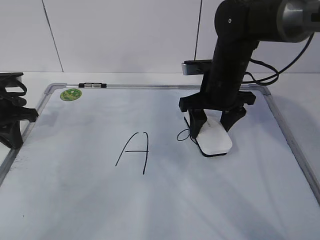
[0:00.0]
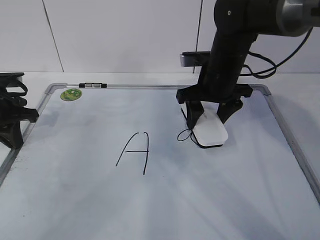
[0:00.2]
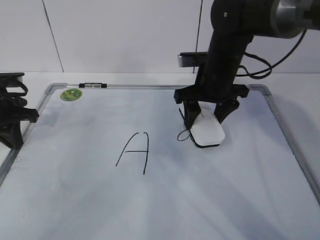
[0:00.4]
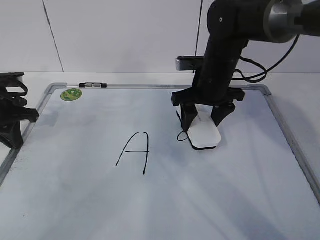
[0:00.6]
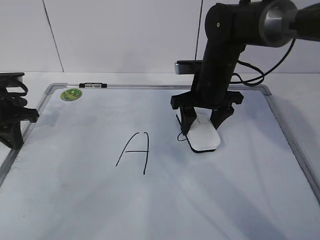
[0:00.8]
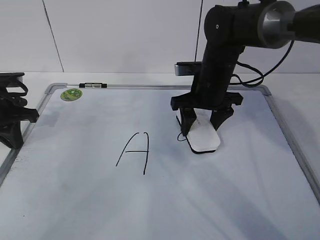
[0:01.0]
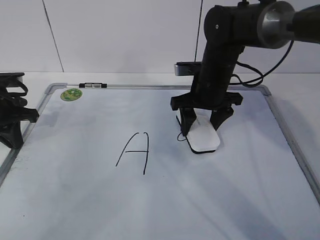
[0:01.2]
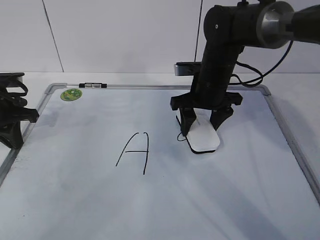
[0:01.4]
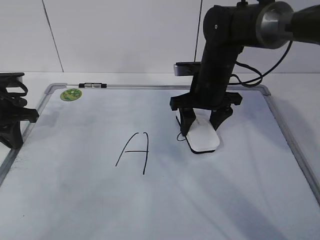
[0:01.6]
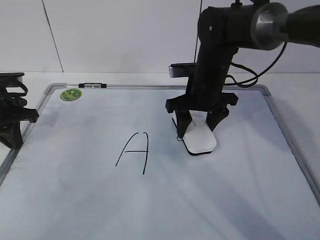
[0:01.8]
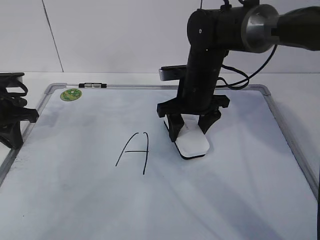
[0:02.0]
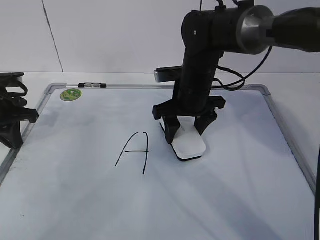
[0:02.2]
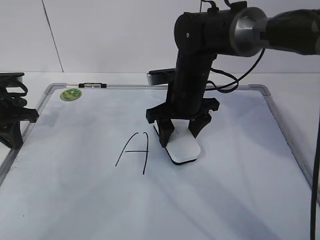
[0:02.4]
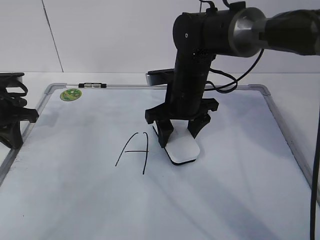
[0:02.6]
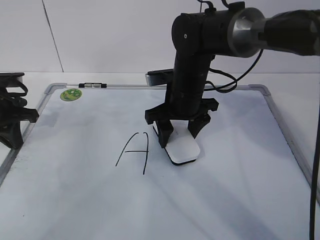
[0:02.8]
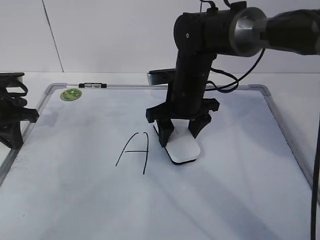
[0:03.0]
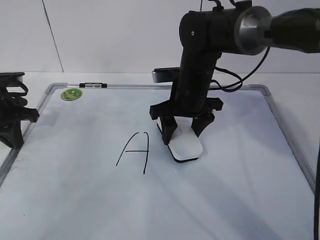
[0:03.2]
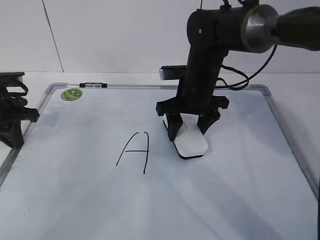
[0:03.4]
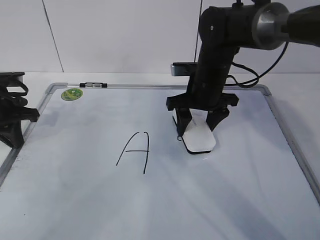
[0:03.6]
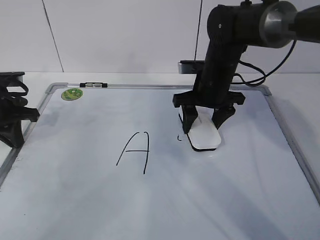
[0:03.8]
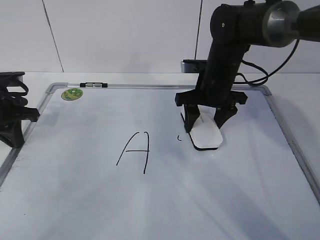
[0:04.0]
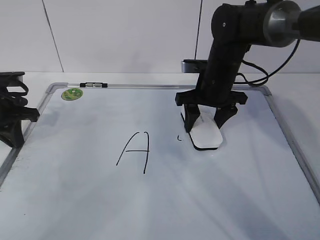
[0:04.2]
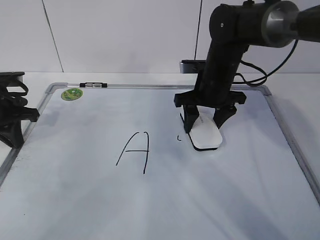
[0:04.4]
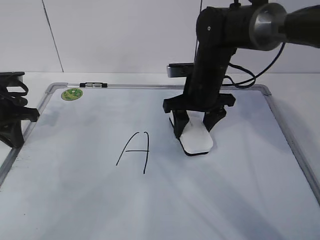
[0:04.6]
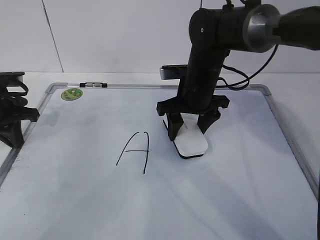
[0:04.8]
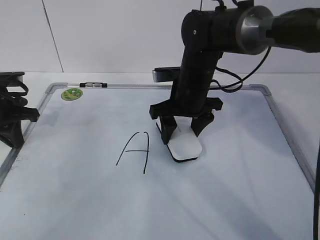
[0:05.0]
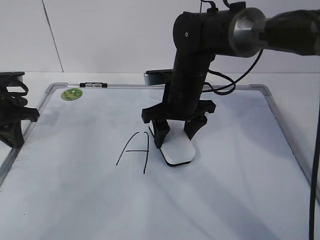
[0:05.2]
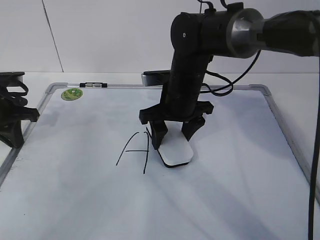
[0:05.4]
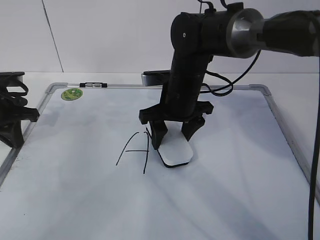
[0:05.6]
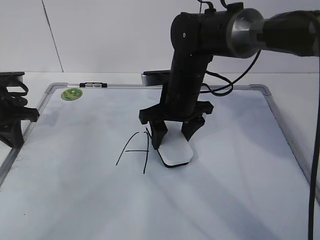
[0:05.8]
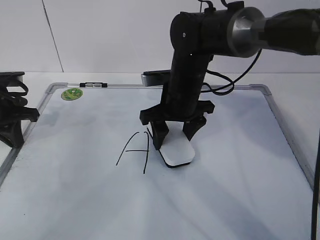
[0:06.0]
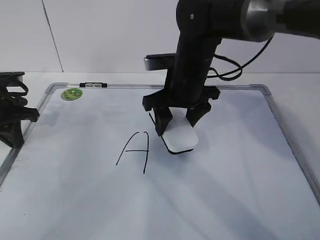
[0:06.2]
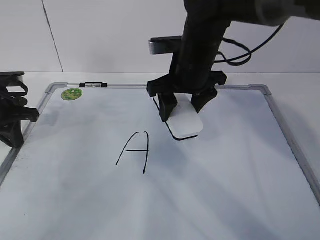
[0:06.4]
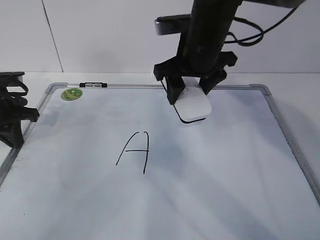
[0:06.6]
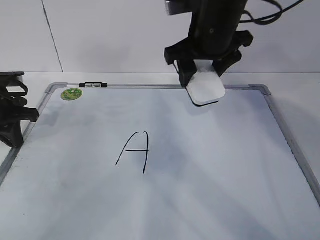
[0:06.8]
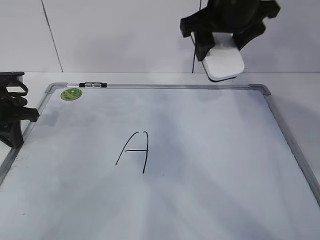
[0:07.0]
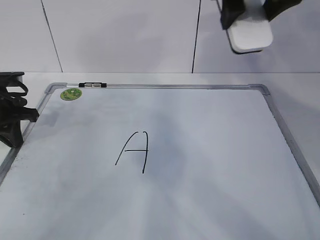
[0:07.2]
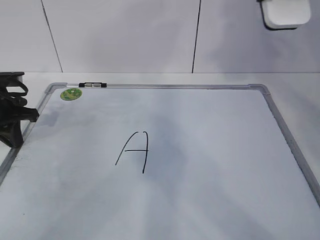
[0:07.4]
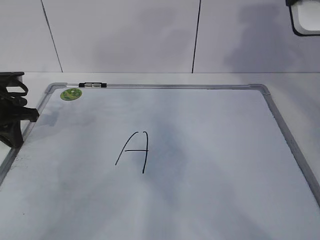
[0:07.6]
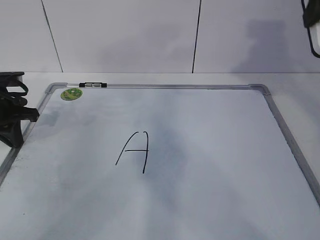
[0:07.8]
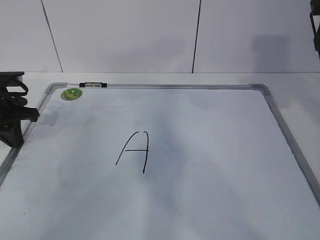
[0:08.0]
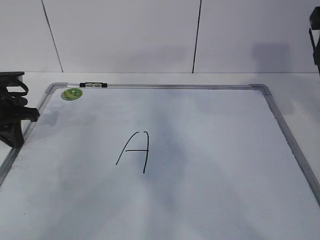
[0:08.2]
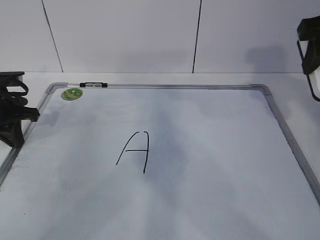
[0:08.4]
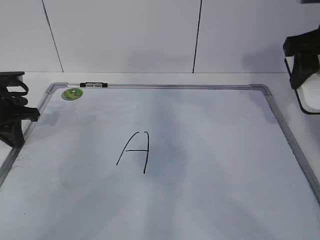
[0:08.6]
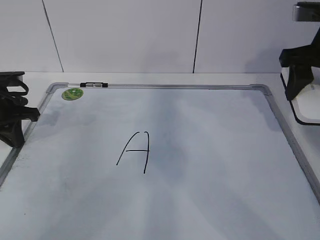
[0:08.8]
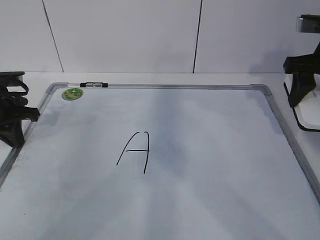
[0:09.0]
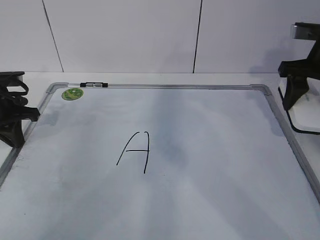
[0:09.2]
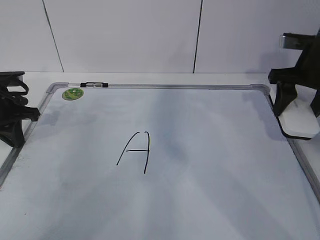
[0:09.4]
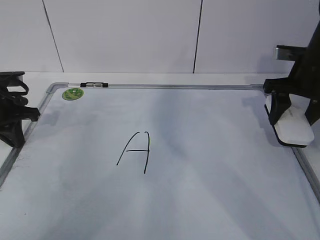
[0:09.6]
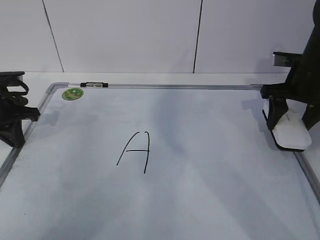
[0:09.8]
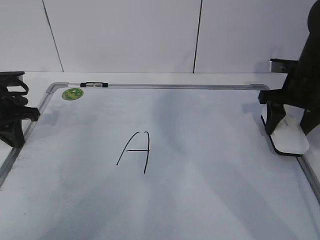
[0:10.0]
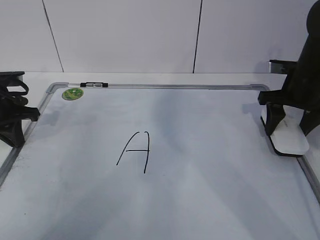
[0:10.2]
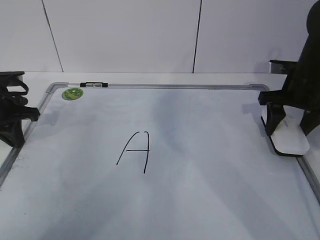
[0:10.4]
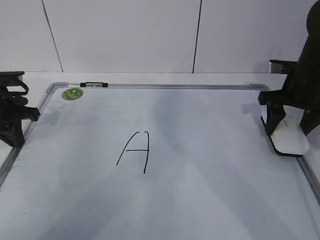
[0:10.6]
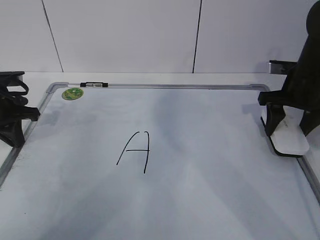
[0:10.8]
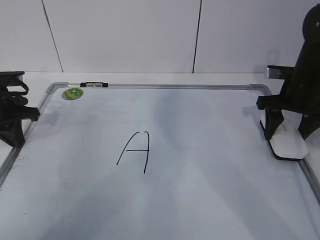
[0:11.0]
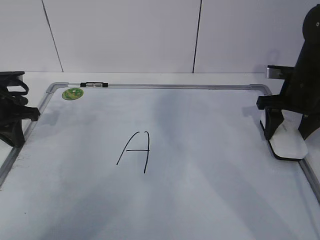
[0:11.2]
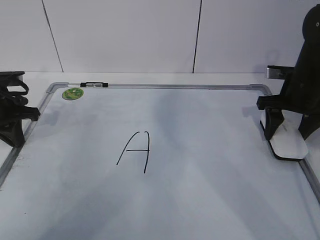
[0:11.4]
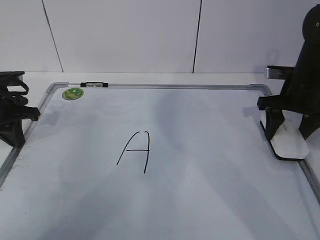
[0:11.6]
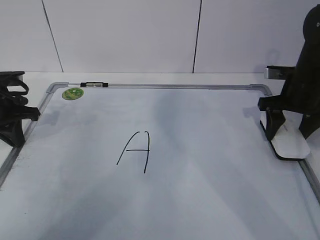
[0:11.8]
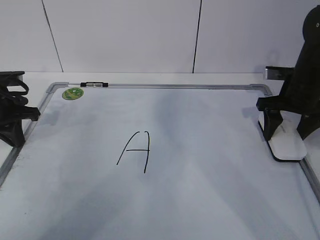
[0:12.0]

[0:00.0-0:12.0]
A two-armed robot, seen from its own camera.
Task of the whole recording: pick up the eraser on the blackboard and erase the letter "a".
Step, 0:01.8 to 0:08.0: Put down the eraser with your right hand.
0:00.0 to 0:01.6: There are only small adjustments of the grippers.
0:01.6 to 0:03.0: The right gripper shifts by approximately 5 cm.
0:03.0 to 0:04.4: The right gripper is displaced to the right by some 5 cm.
0:04.4 to 0:06.0: The right gripper travels to the left by about 5 cm.
0:06.0 to 0:07.6: The right gripper moves upward and to the right, about 30 cm.
0:07.6 to 0:09.0: The right gripper is displaced downward and to the right by some 15 cm.
0:09.0 to 0:10.4: The right gripper heads downward, covering some 10 cm.
0:10.4 to 0:12.0: The right gripper opens its fingers.

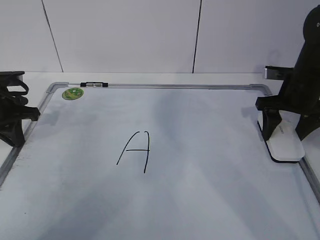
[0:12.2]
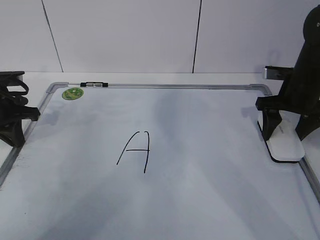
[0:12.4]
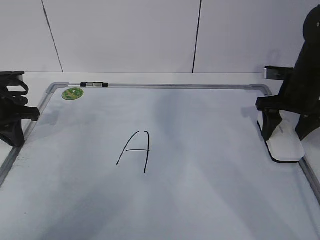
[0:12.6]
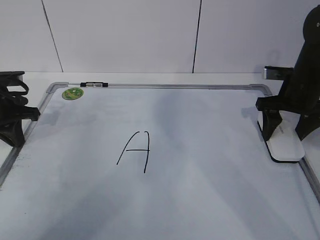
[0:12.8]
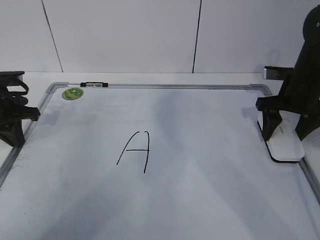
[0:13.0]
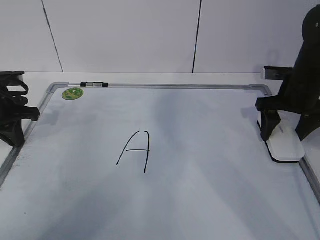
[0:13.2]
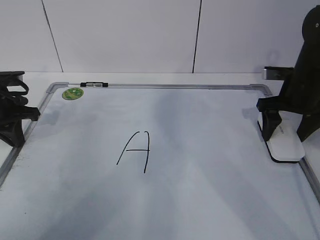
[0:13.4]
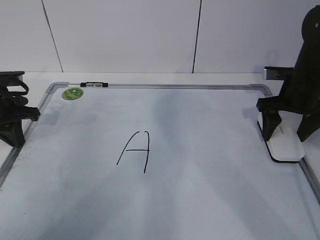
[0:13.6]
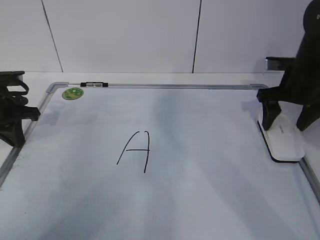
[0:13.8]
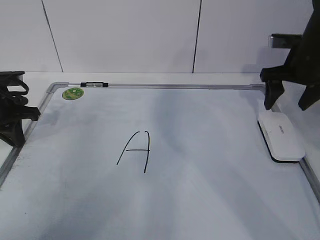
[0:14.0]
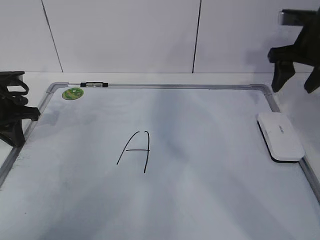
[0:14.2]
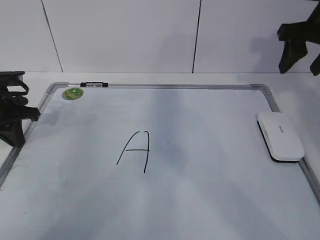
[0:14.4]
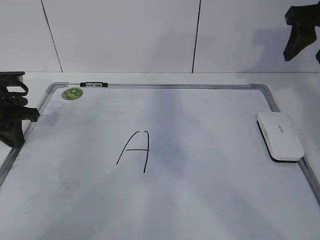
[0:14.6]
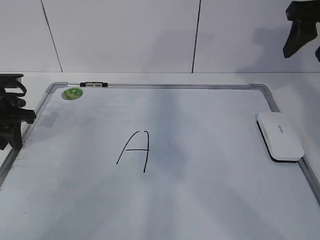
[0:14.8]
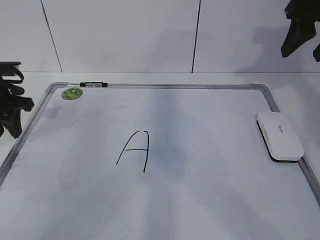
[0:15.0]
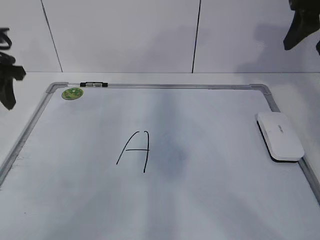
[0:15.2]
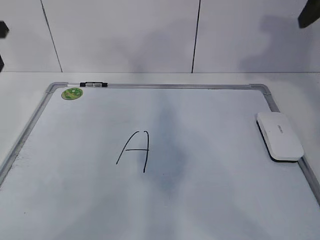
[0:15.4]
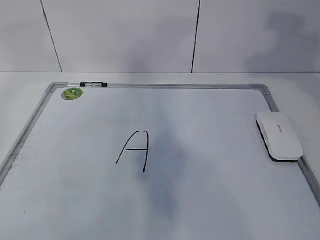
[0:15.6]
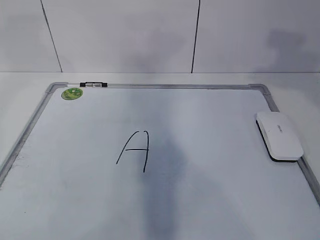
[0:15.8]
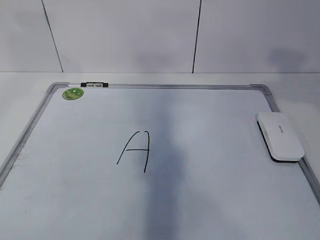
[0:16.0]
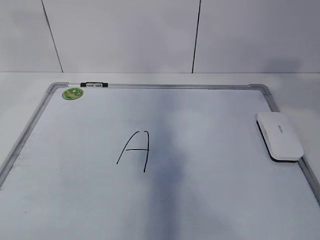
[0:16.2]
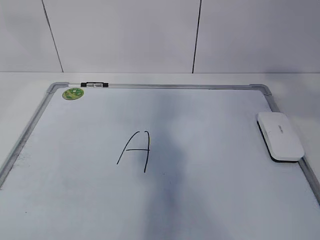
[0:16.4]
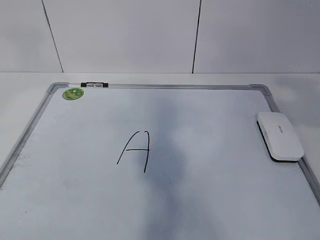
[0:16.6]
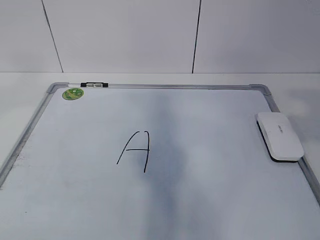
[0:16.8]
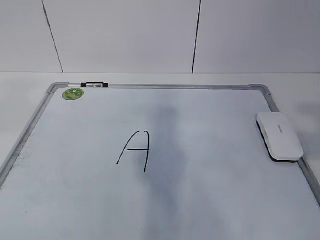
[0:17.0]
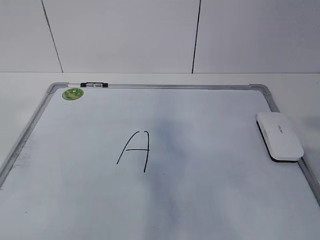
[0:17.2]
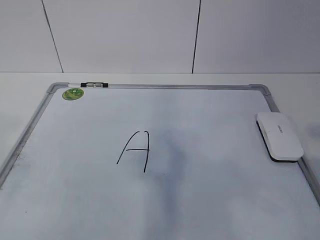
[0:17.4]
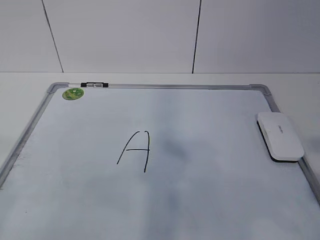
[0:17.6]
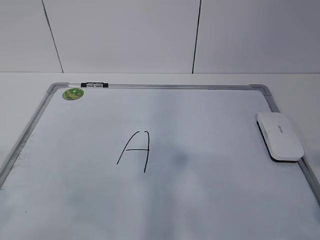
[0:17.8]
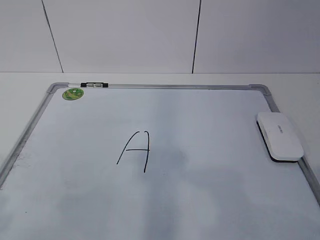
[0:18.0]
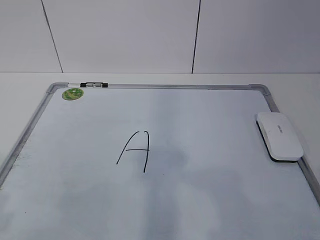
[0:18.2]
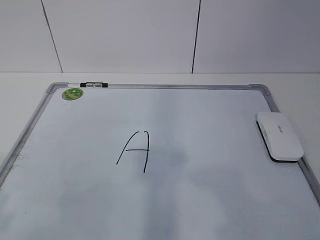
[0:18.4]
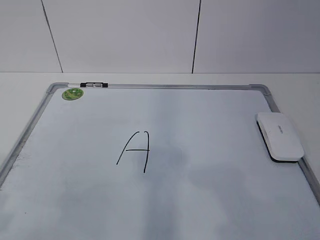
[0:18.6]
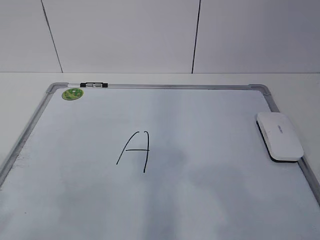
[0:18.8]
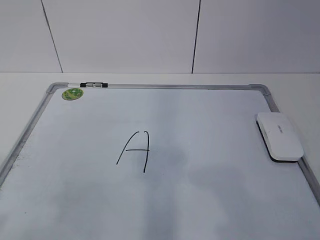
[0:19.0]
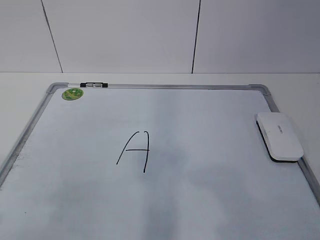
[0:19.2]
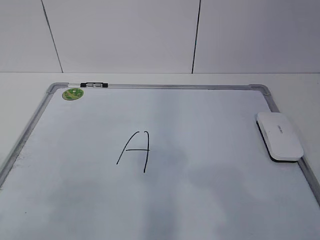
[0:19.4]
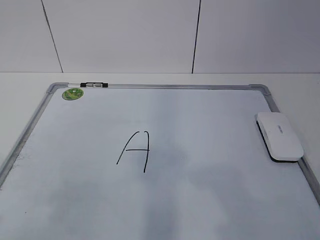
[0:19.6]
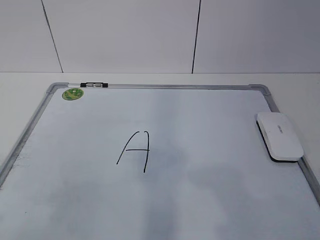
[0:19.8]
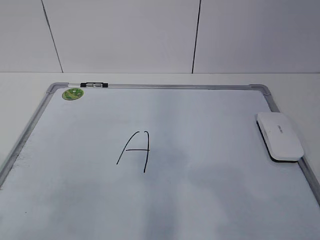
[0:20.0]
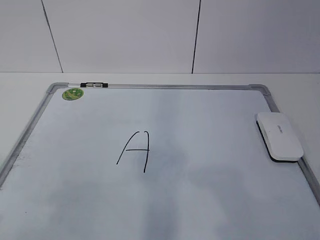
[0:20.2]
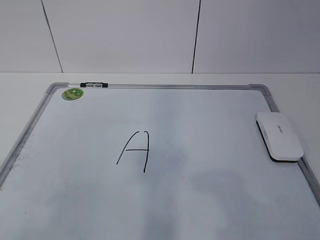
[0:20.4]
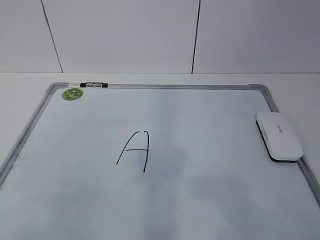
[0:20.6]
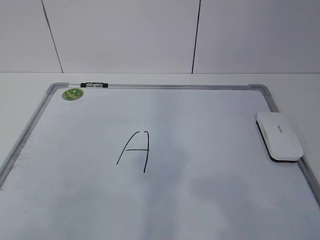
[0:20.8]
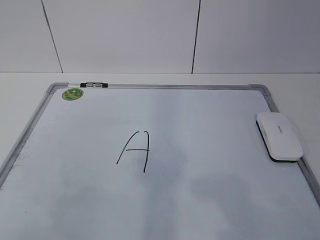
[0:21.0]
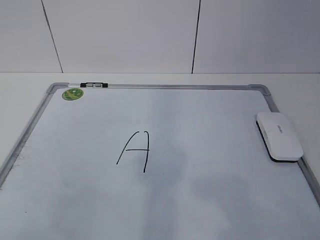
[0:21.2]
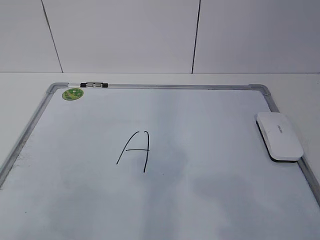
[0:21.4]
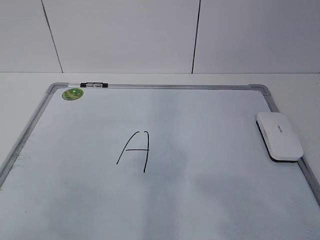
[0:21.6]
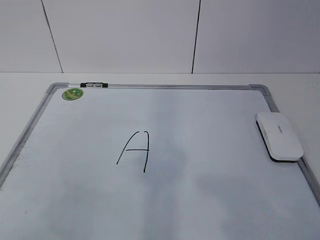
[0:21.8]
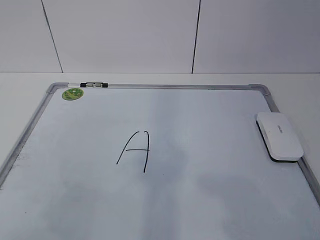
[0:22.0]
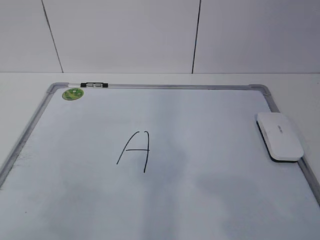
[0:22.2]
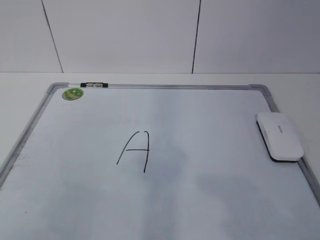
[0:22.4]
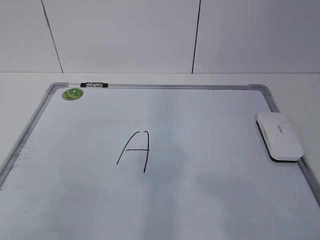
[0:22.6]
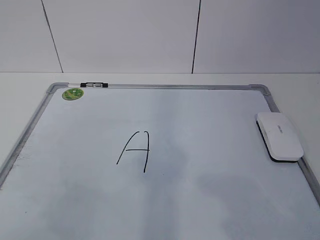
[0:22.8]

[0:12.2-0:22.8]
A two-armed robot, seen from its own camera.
Task of the whole recording: pick up the eraser on the blackboard and erase the letter "a".
0:12.2 to 0:13.8: The right gripper opens up.
0:13.8 to 0:15.2: The left gripper travels upward by some 10 cm, and opens up; the right gripper moves upward, approximately 15 cm, and closes its fingers.
0:15.2 to 0:16.8: The left gripper is displaced backward and upward by approximately 35 cm. Meanwhile the right gripper is displaced backward by roughly 25 cm.
0:16.8 to 0:18.2: The grippers both shift downward and backward by approximately 20 cm.
